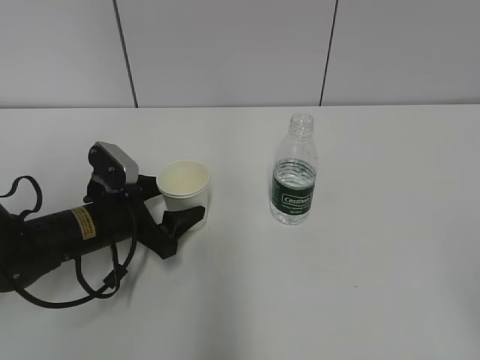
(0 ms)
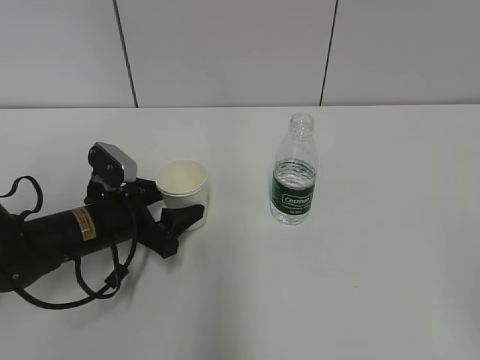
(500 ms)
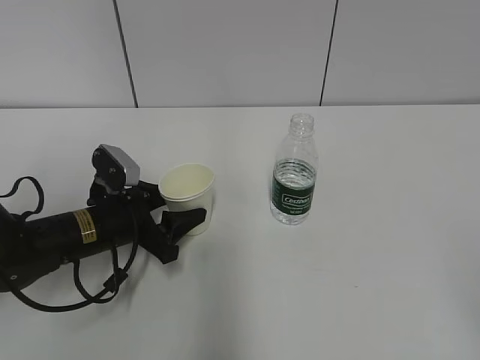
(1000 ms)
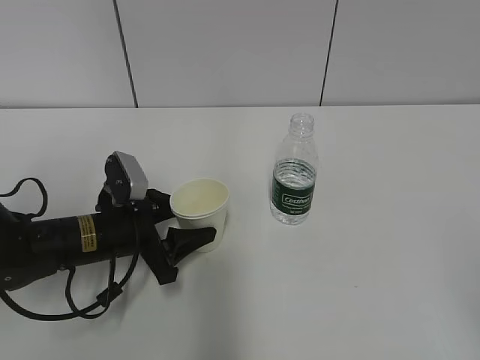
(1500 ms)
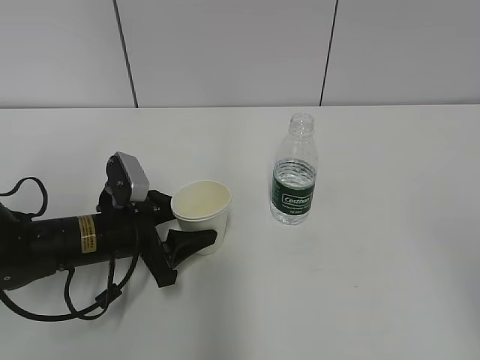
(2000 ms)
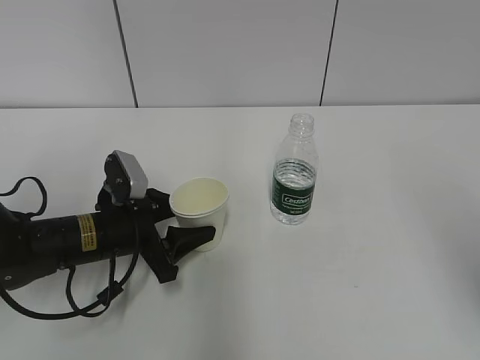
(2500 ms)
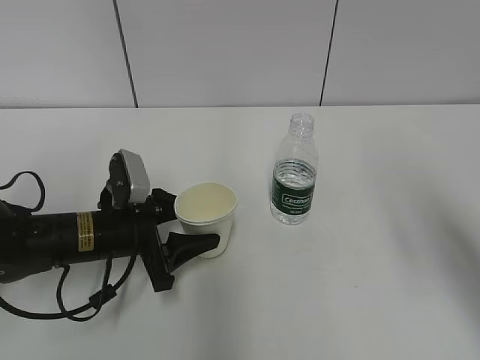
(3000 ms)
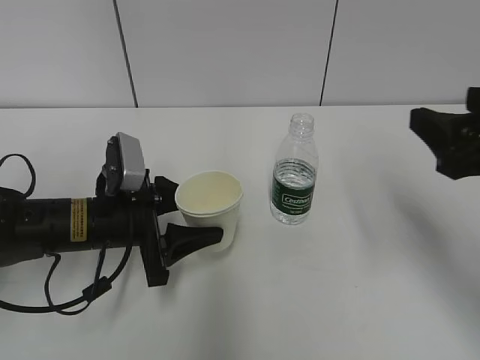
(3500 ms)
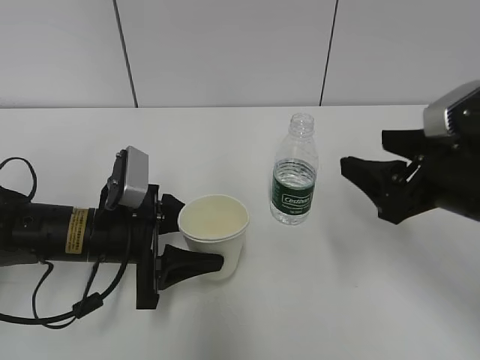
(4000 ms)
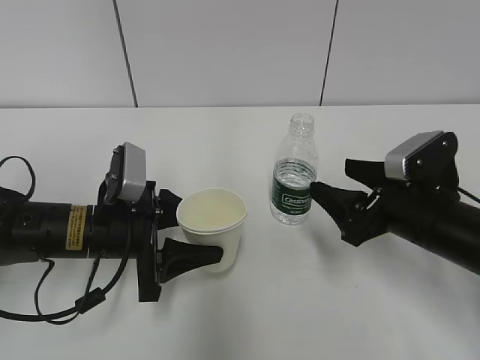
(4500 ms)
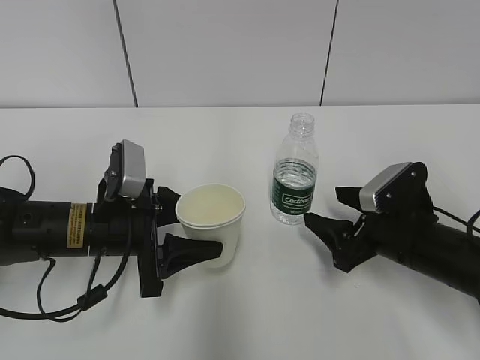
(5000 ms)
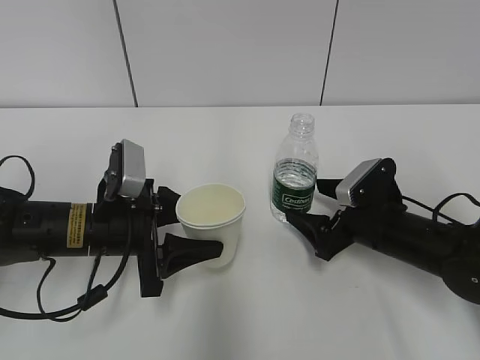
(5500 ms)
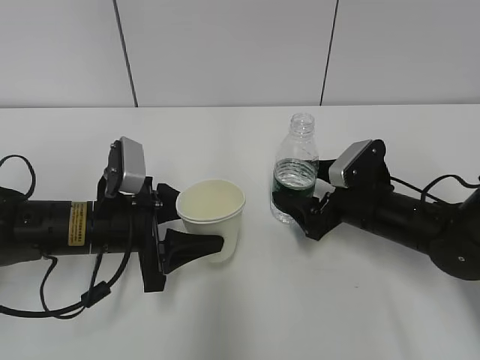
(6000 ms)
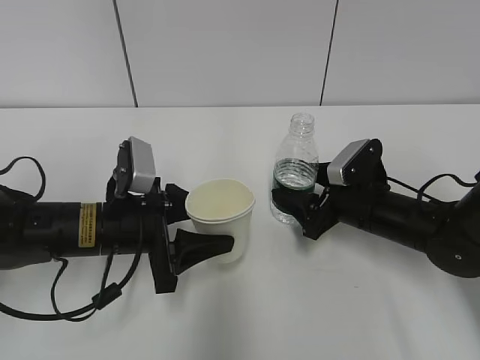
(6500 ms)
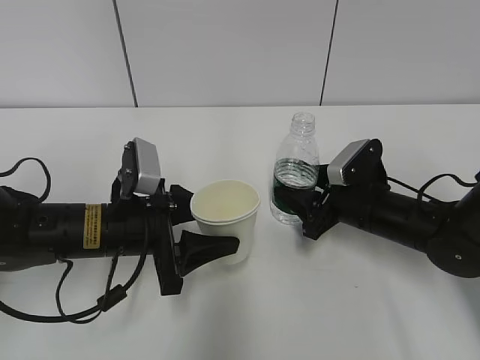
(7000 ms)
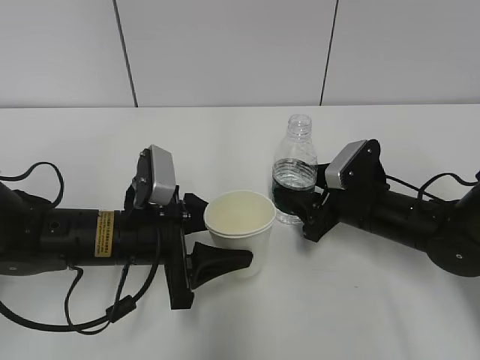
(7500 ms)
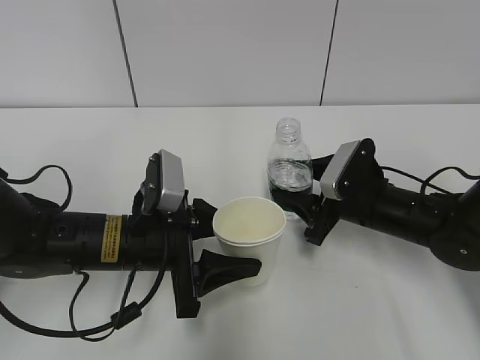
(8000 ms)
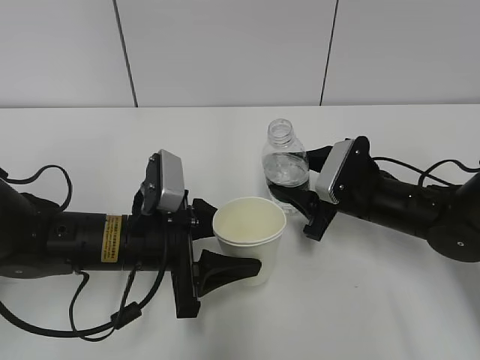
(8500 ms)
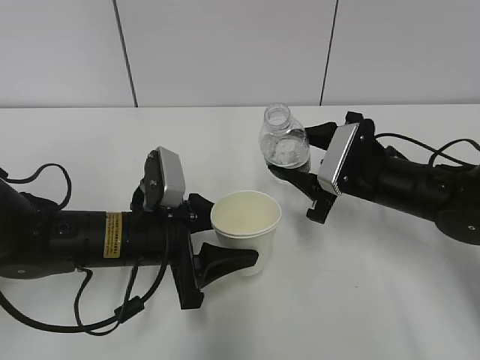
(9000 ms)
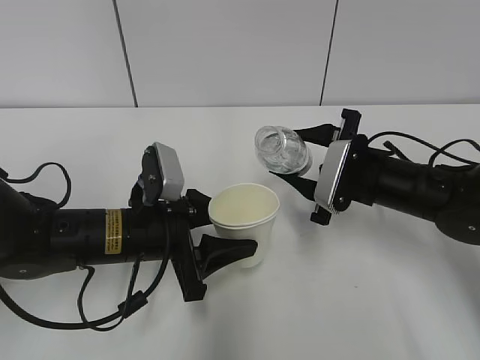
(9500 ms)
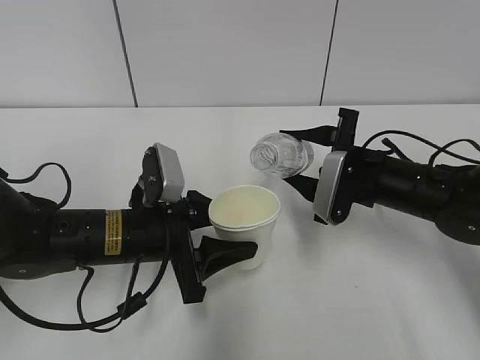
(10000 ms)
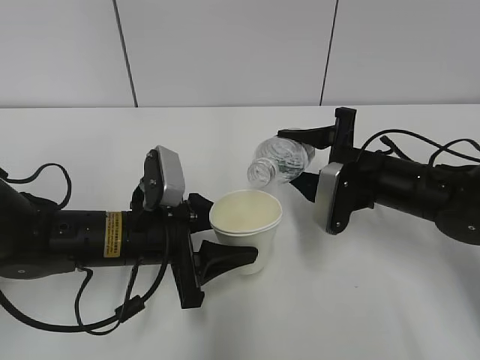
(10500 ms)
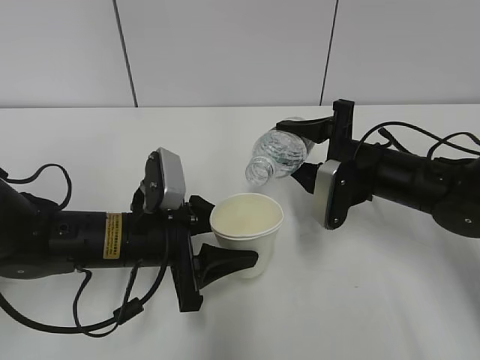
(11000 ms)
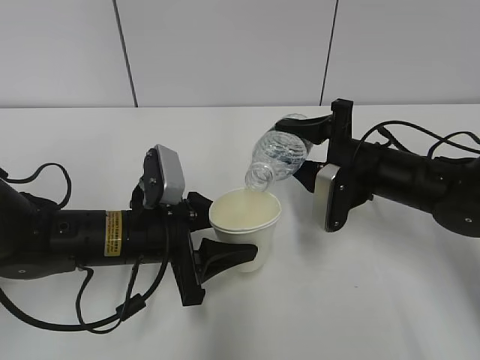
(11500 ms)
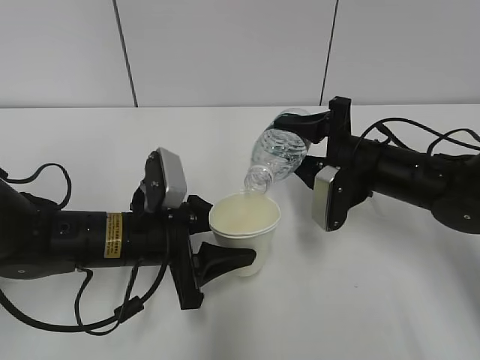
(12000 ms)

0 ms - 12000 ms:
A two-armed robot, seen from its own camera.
Step, 0 ms - 5000 ms: Grab the water bottle with the right hand.
Step, 5500 ms - 9000 ms: Lift the paper cup with the left hand.
0 ms - 2000 ms: The left gripper closes up.
2000 ms - 4000 ms: The right gripper shifts approximately 25 cm forward and downward.
4000 ms - 6000 ms: The right gripper travels downward and forward by about 15 cm, and opens up.
6000 ms - 8000 ms: The right gripper closes its fingers.

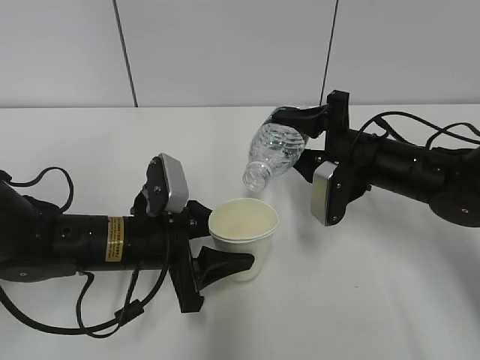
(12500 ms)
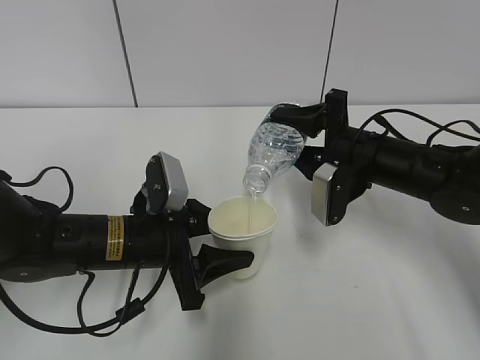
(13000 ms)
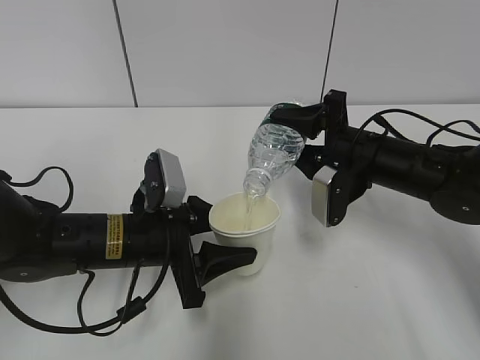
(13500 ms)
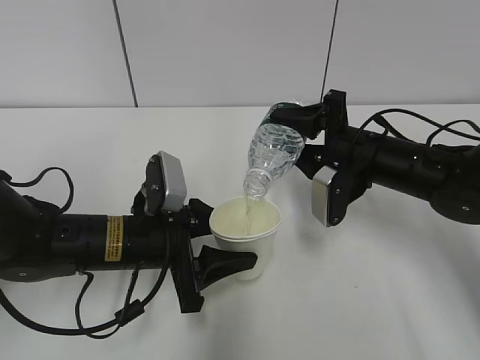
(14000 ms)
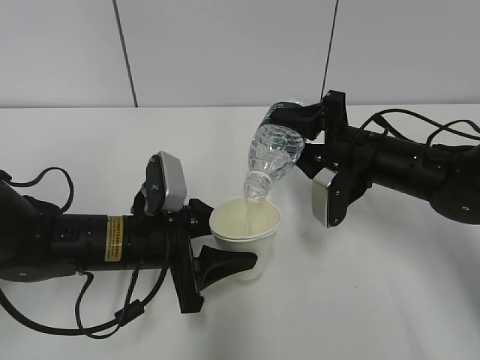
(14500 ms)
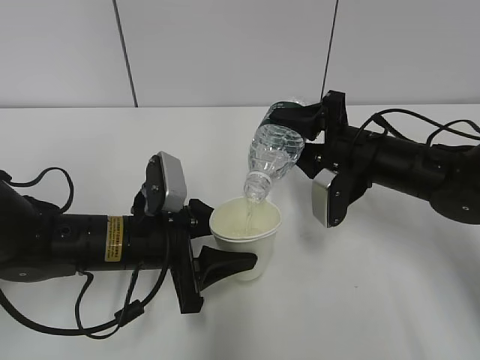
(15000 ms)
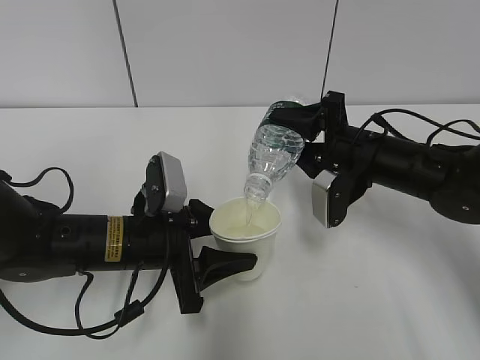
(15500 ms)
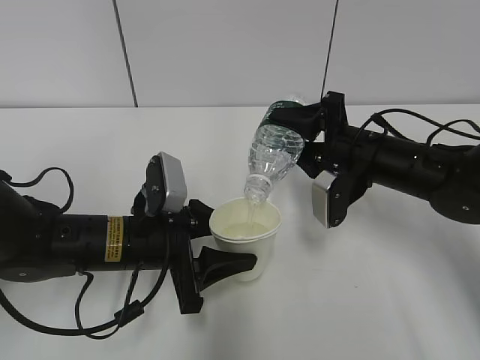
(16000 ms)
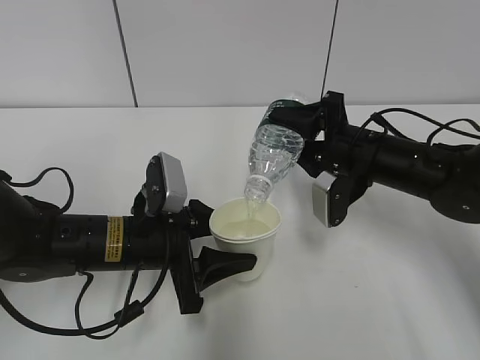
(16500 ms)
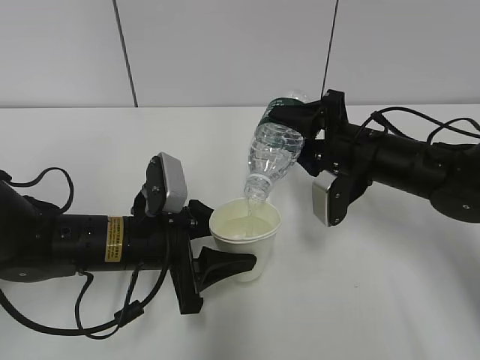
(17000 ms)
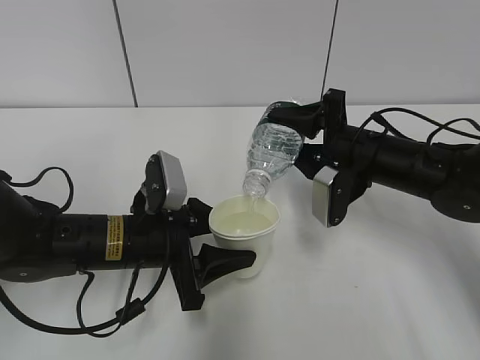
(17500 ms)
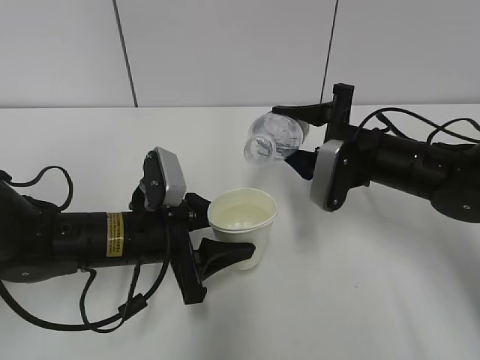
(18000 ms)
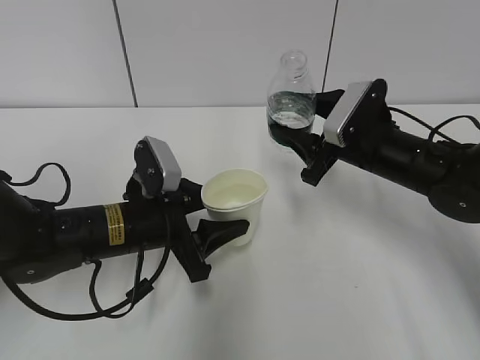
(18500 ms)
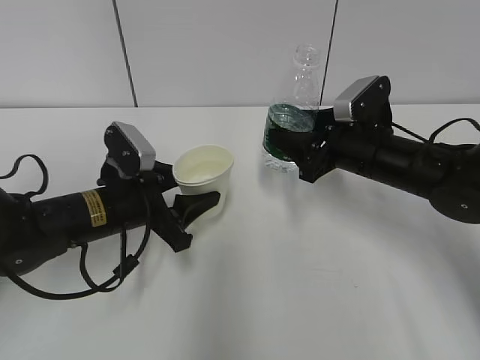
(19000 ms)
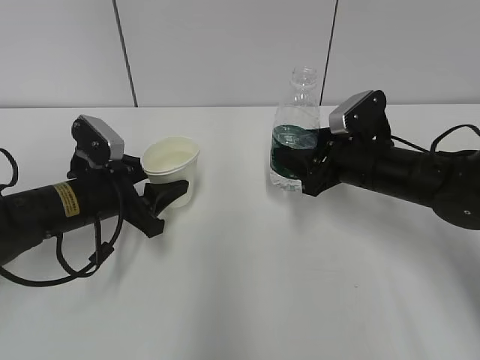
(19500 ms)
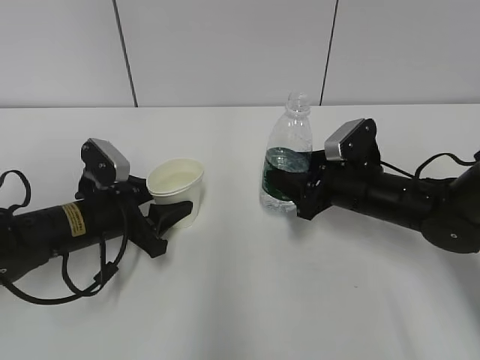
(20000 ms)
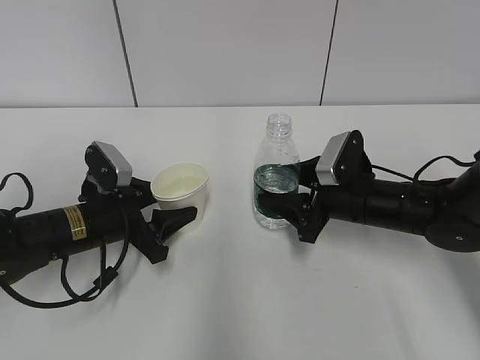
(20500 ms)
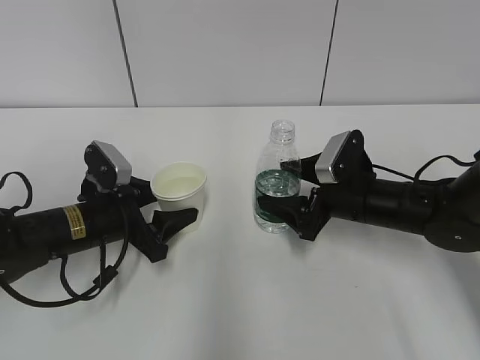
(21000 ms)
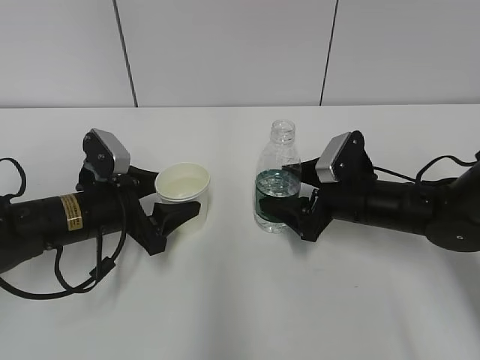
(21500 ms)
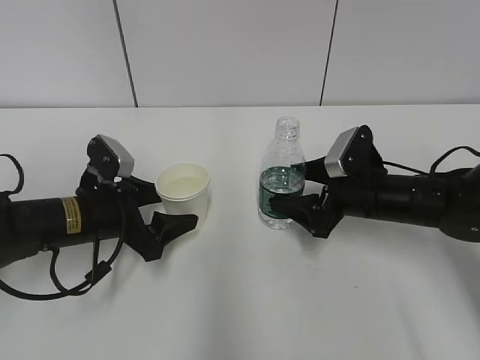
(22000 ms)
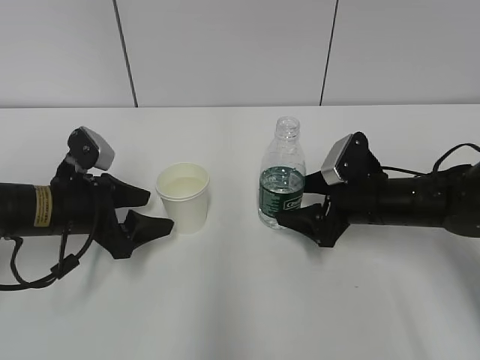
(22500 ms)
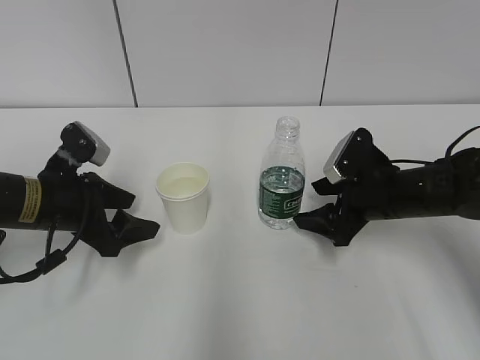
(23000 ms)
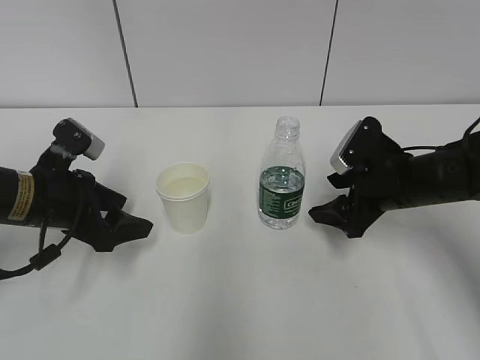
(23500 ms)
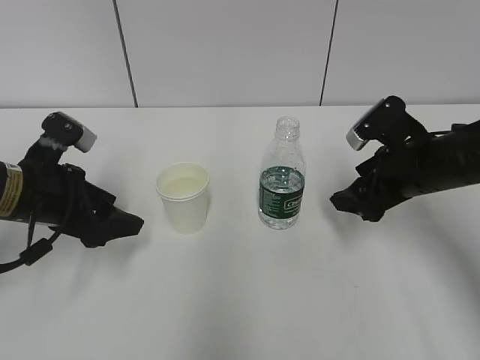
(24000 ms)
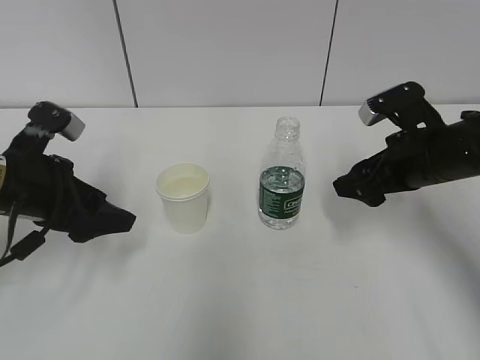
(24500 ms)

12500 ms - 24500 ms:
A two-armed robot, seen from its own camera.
12500 ms - 14500 ms: The grippers stay close to where they were, moving slightly.
14500 ms - 16500 ms: Both grippers stay about where they are.
18500 ms - 20500 ms: The left gripper is displaced to the left by approximately 5 cm; the right gripper travels downward by roughly 5 cm.
20500 ms - 22500 ms: The left gripper opens up; the right gripper opens up.
22500 ms - 24500 ms: Both grippers travel together upward, approximately 10 cm.

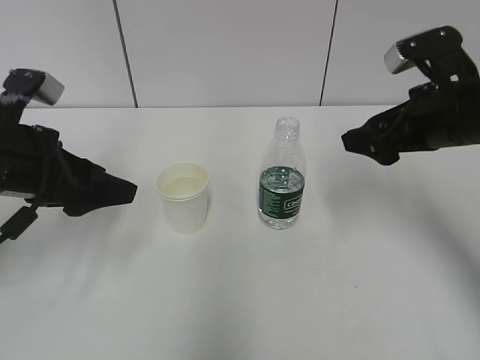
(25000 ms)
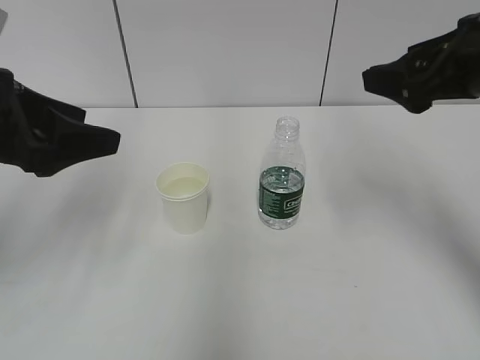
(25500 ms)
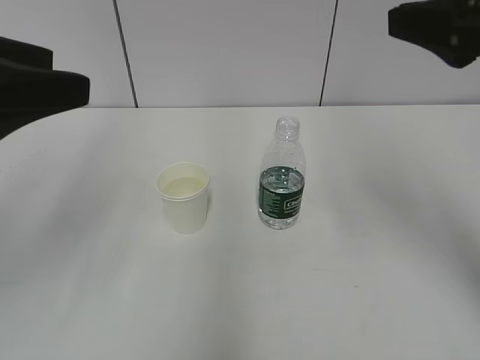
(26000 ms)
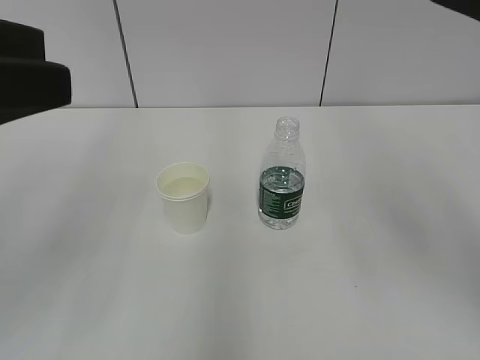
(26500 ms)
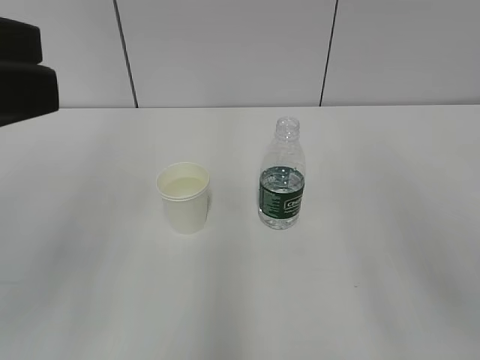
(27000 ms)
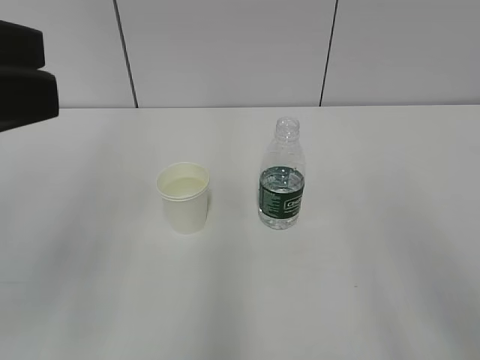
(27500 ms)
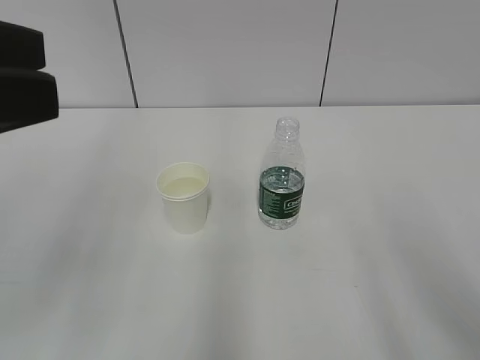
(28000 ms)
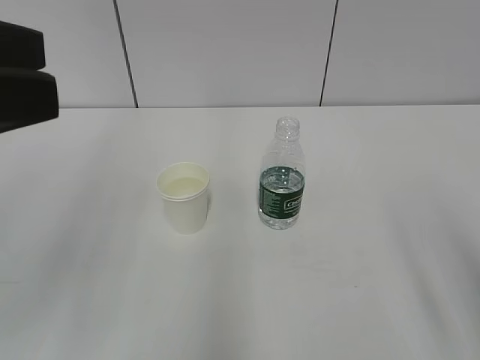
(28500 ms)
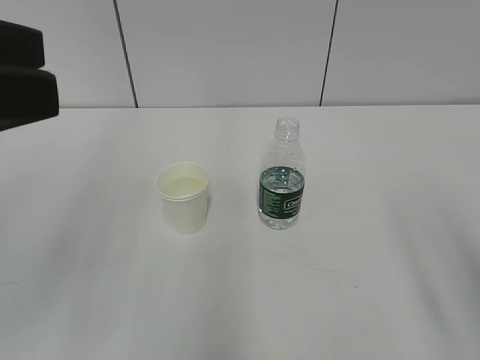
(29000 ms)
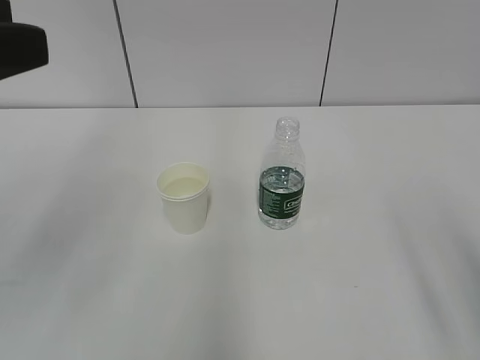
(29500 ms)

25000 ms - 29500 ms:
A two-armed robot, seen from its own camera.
25000 ms - 27000 ms: The right gripper goes some 25 cm backward and upward. The left gripper goes some 20 cm upward and backward.
